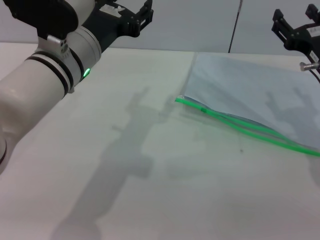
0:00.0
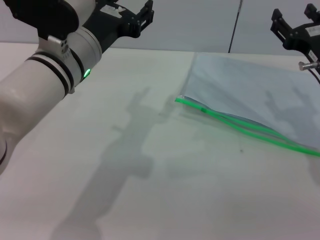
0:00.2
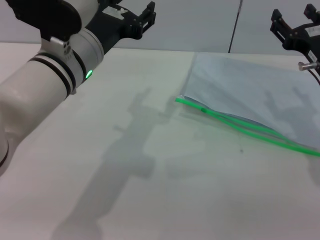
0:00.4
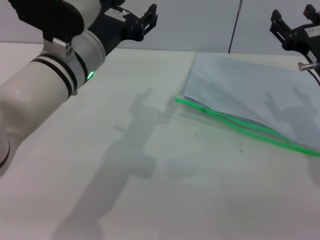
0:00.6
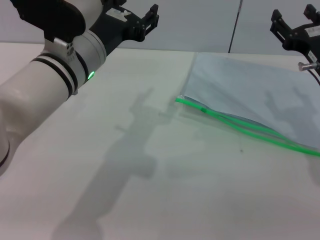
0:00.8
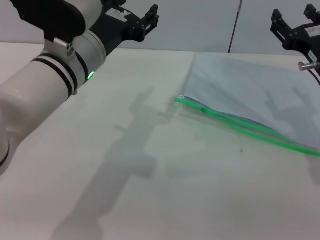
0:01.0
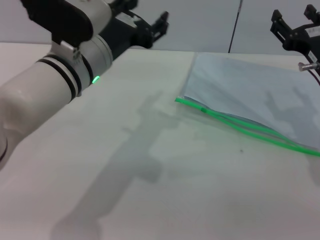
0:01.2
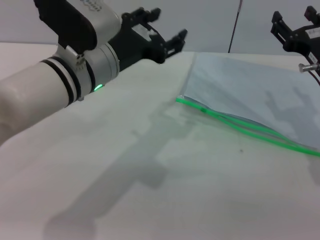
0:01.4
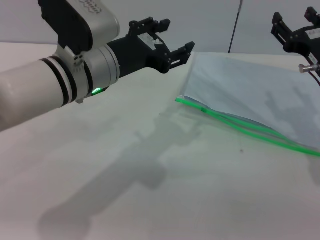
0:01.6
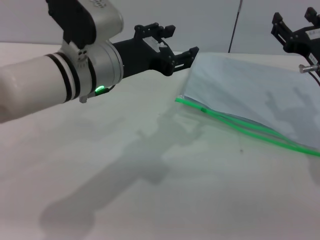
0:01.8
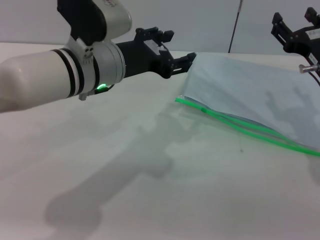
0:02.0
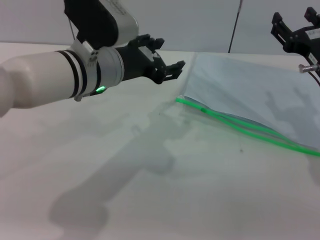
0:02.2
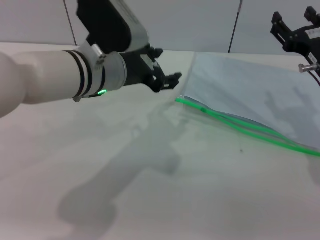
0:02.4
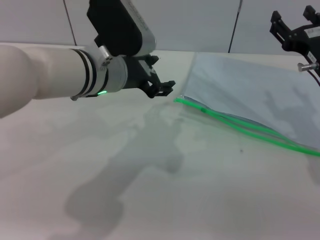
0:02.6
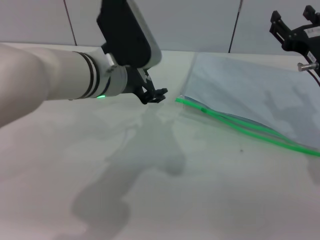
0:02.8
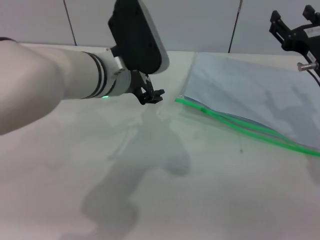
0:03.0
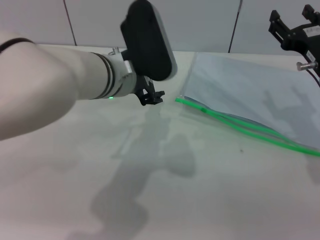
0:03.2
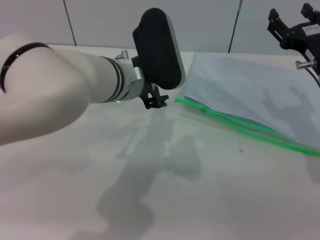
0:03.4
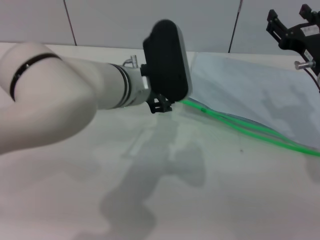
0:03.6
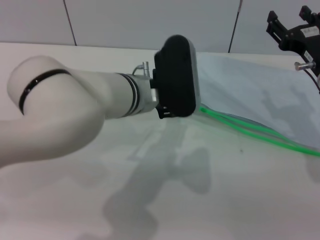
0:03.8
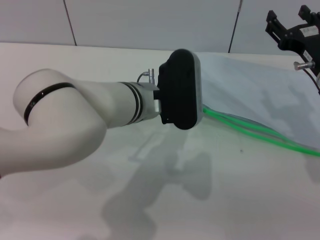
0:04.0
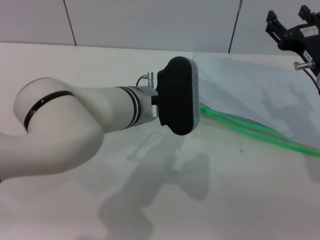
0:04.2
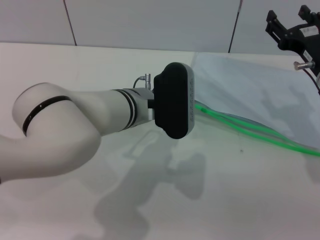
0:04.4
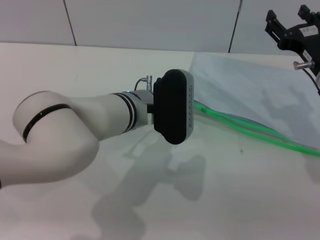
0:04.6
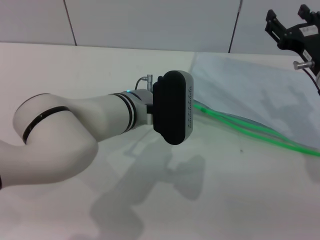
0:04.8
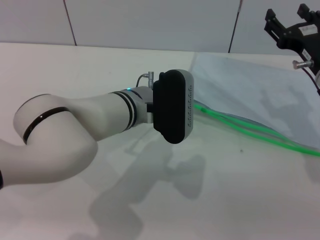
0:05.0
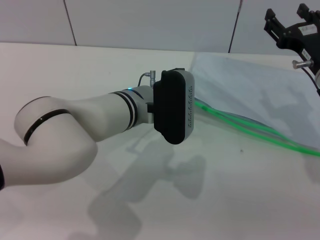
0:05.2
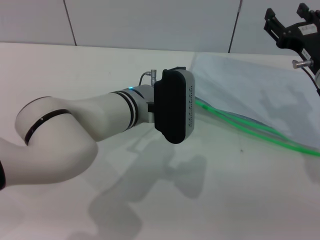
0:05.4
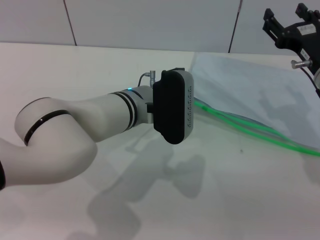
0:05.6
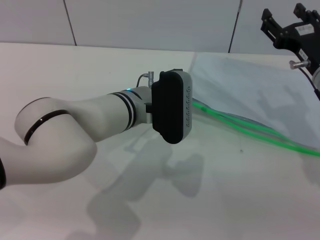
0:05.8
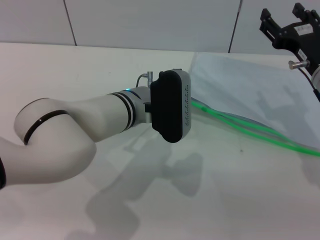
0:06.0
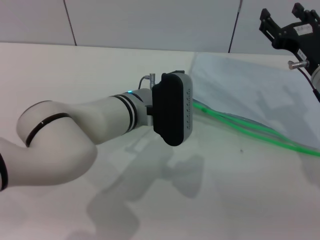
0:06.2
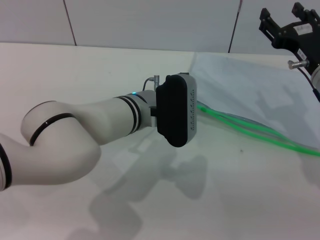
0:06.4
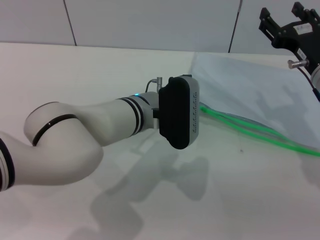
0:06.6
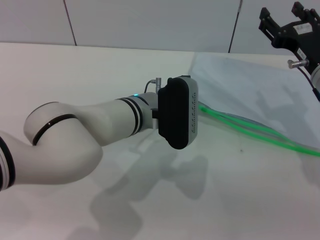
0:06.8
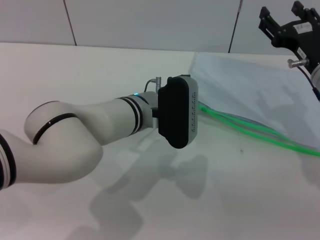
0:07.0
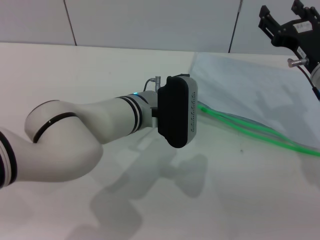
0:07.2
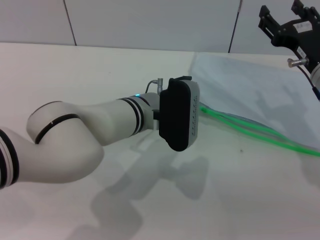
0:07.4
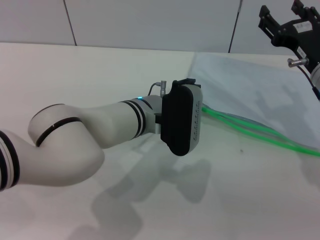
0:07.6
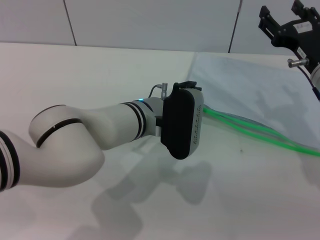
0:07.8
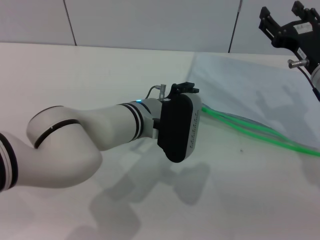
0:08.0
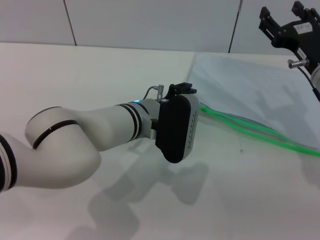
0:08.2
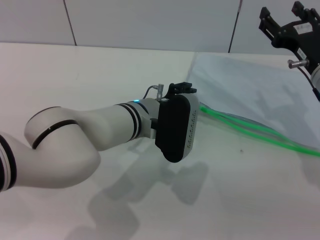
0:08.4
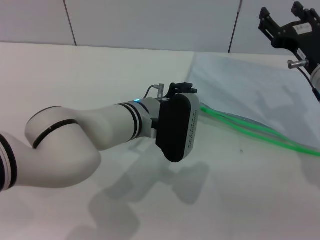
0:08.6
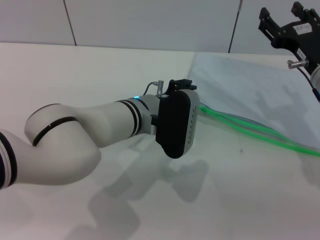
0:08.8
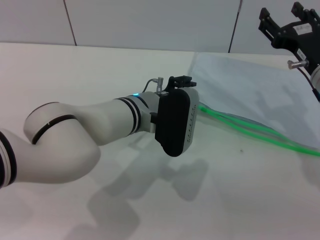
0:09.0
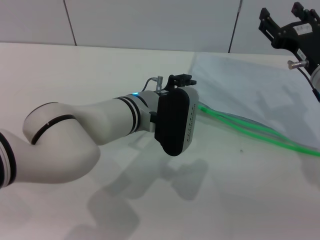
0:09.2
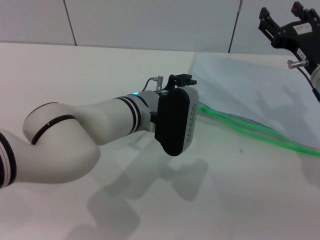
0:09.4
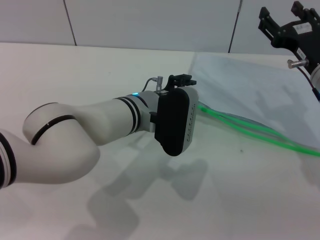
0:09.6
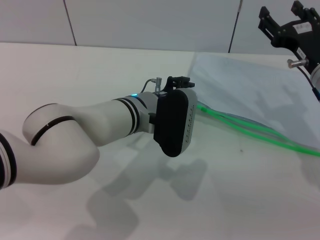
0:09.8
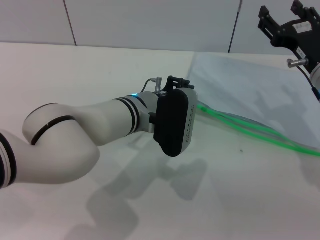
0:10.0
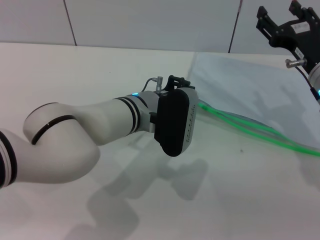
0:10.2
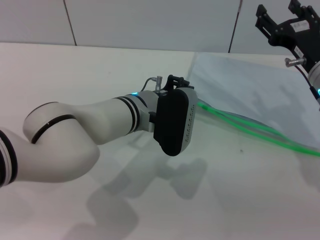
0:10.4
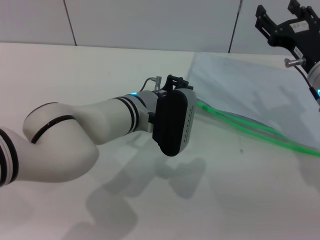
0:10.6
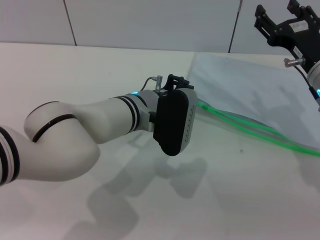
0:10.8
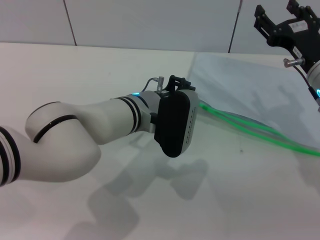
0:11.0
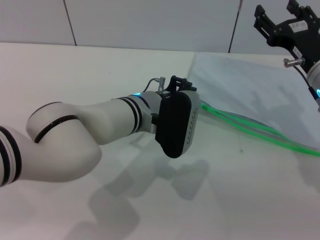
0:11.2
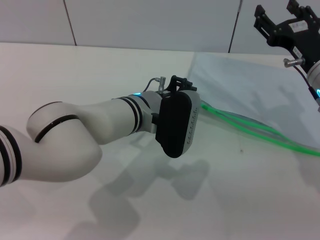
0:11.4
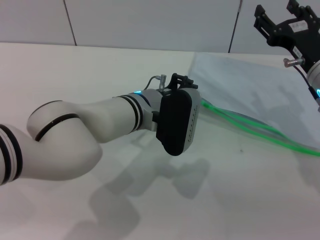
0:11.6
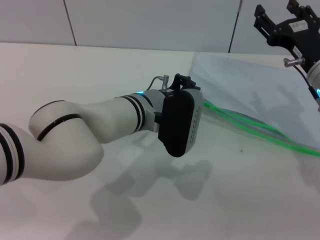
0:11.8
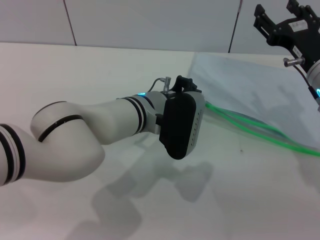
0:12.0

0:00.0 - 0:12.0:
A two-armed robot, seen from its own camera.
0:03.0 - 0:04.4: The left gripper heads downward, covering some 5 cm.
0:04.4 - 0:09.0: There are only small adjustments of the grippers.
0:09.0 - 0:10.4: The left gripper closes its fingers.
0:10.4 - 0:12.0: Both grippers stay about where they are.

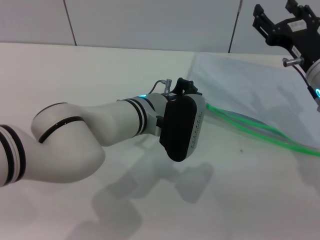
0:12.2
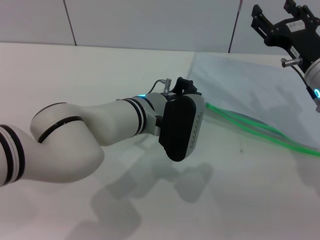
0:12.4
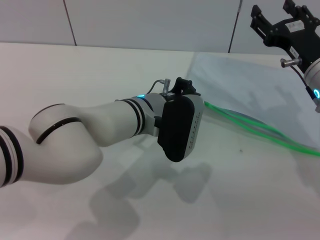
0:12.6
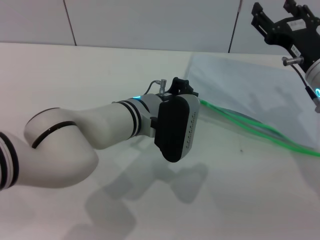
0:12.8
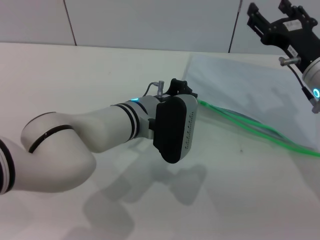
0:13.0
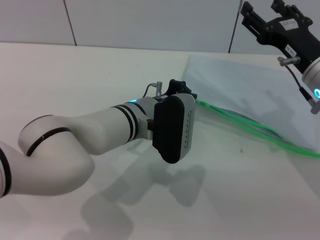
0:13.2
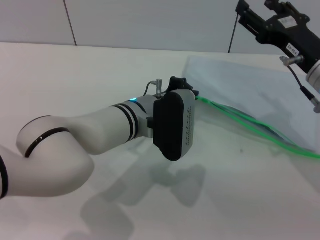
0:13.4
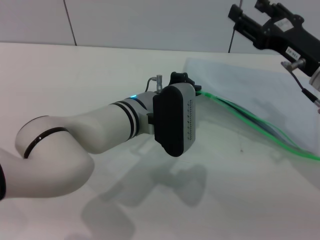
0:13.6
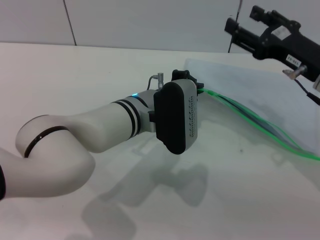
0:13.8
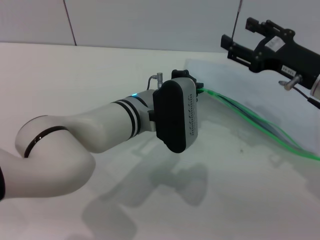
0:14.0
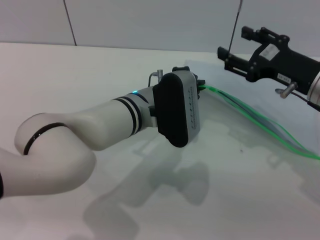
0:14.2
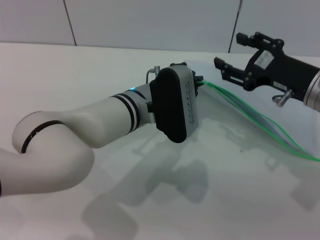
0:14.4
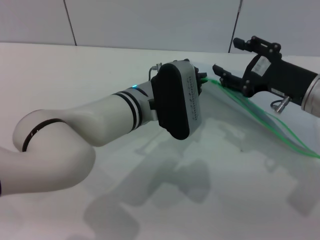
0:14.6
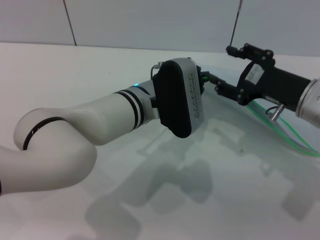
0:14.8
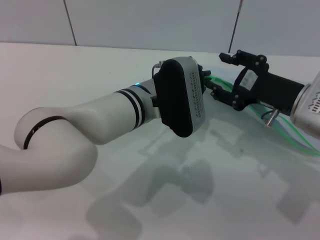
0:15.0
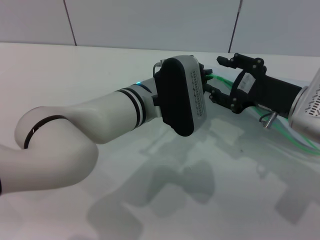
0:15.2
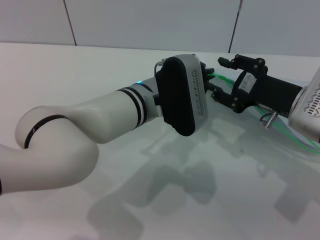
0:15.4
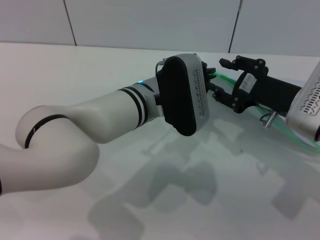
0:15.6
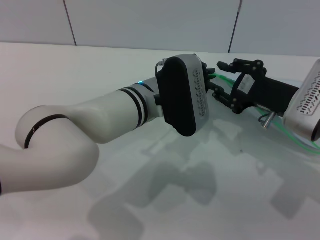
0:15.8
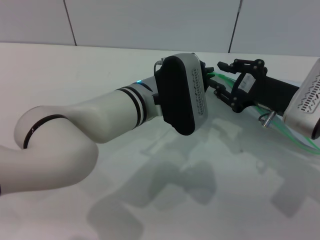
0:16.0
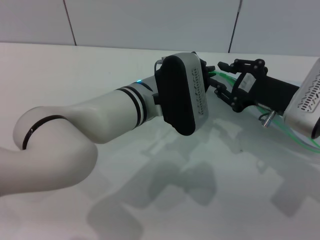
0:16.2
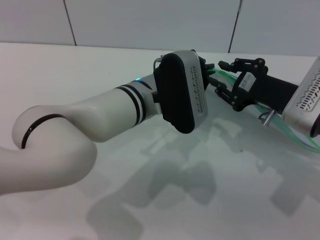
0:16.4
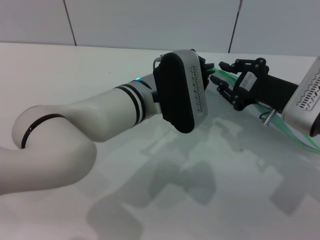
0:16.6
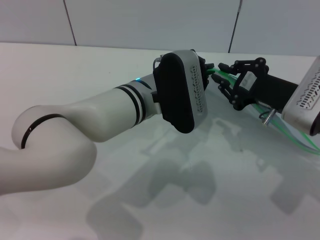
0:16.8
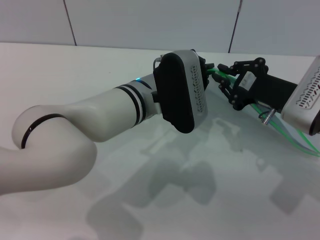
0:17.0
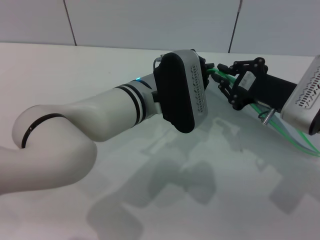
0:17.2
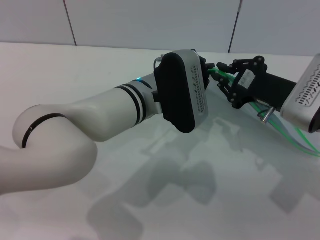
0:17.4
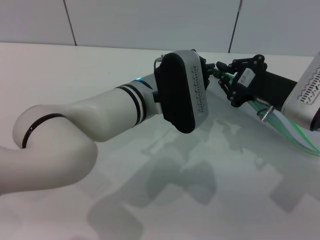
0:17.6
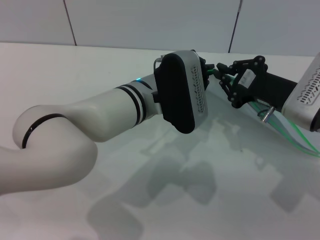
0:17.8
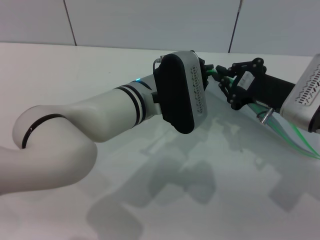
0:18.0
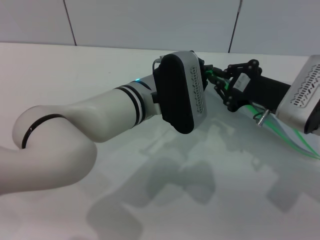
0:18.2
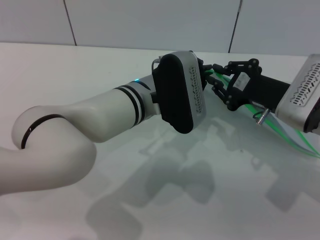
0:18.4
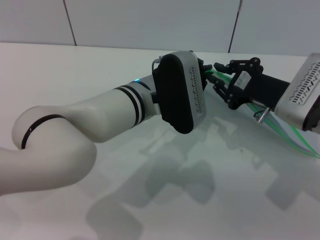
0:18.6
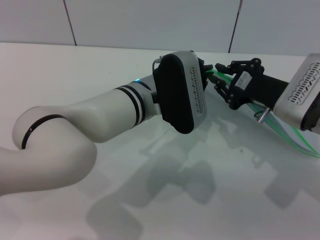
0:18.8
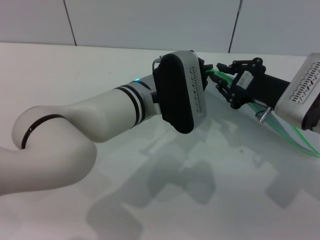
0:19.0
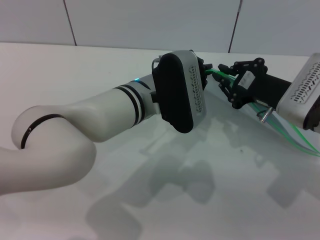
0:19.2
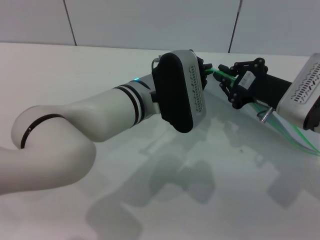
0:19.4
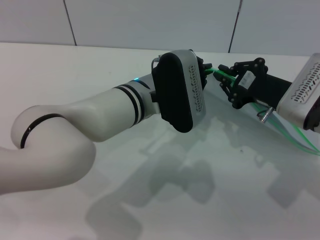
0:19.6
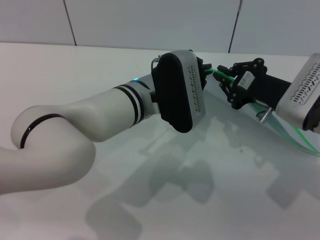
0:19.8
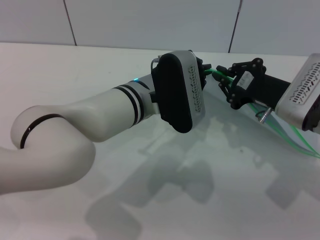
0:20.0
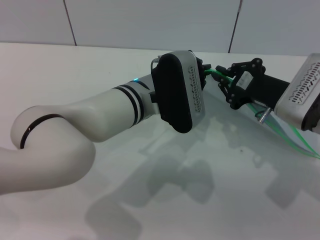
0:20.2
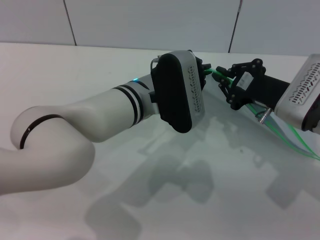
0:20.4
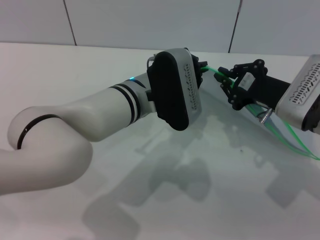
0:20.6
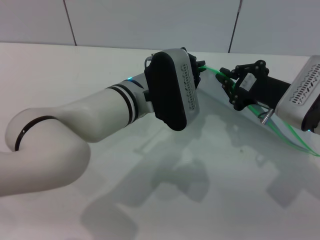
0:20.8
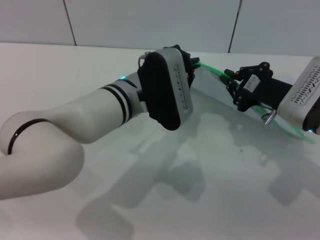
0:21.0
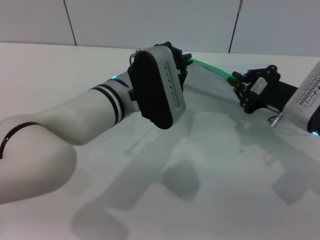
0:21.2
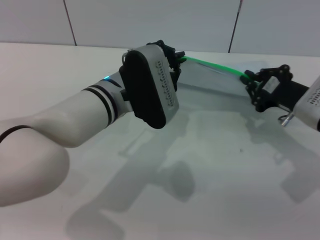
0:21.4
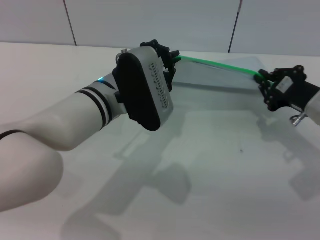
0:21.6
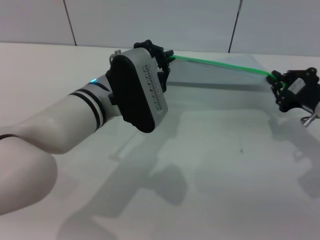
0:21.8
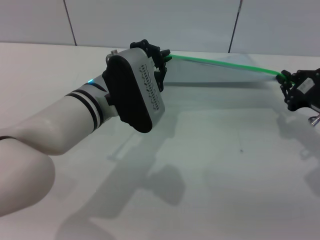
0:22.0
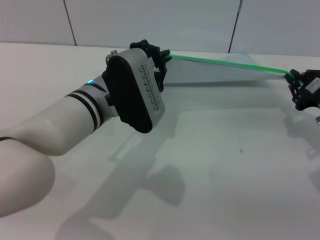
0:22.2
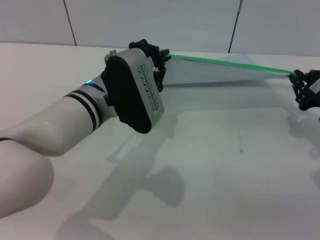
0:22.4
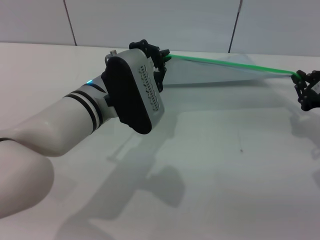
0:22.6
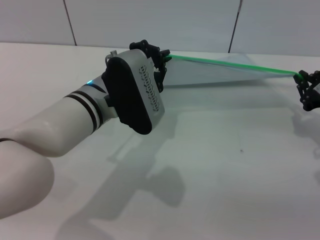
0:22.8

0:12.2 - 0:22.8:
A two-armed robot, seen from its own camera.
0:15.2 - 0:16.8: The right gripper closes up.
0:16.8 - 0:19.8: The two grippers keep their place.
0:19.8 - 0:21.2: The grippers stay close to where they were, moving slightly.
0:21.2 - 0:22.8: The right gripper is displaced to the right by approximately 10 cm.
